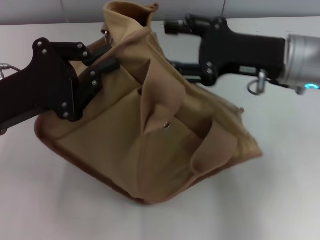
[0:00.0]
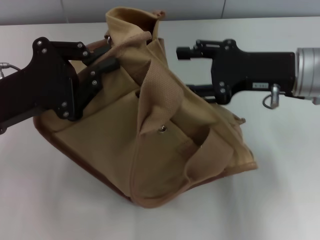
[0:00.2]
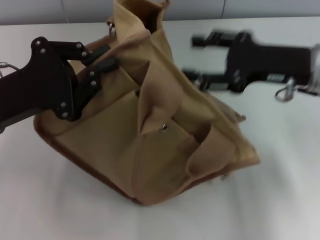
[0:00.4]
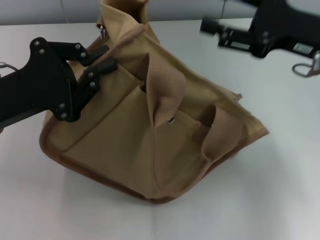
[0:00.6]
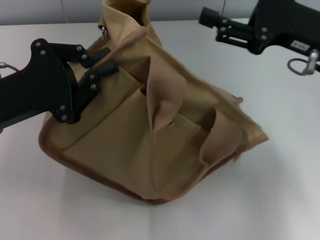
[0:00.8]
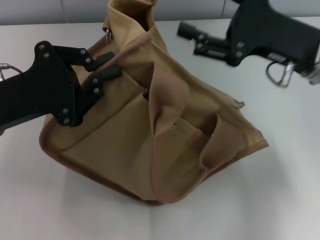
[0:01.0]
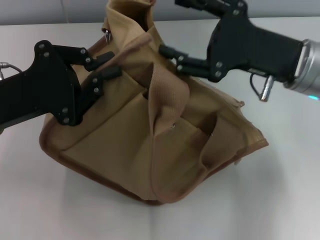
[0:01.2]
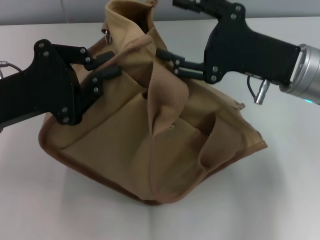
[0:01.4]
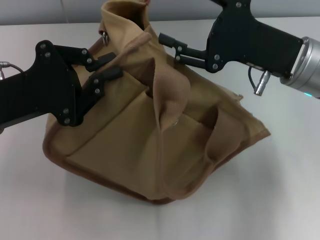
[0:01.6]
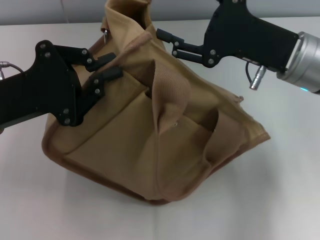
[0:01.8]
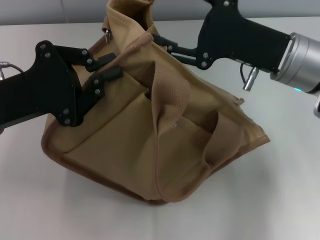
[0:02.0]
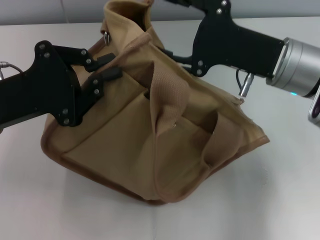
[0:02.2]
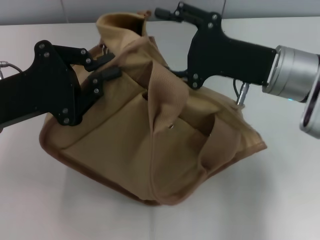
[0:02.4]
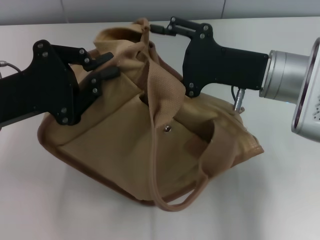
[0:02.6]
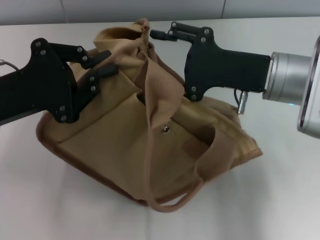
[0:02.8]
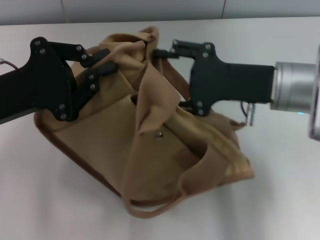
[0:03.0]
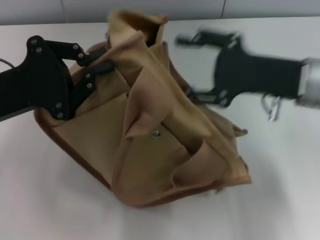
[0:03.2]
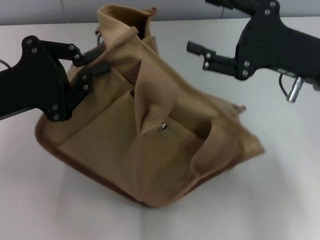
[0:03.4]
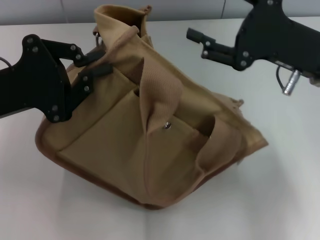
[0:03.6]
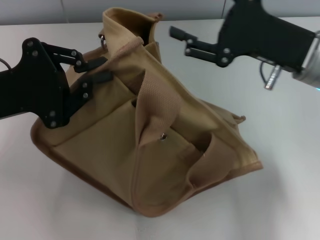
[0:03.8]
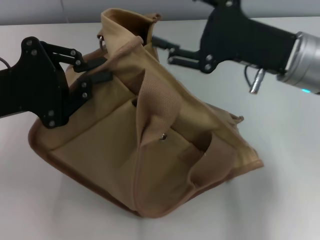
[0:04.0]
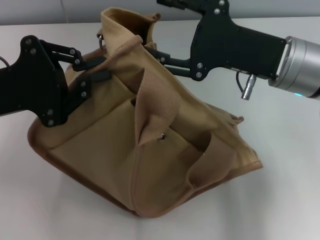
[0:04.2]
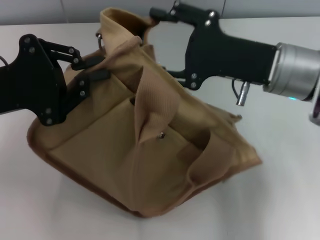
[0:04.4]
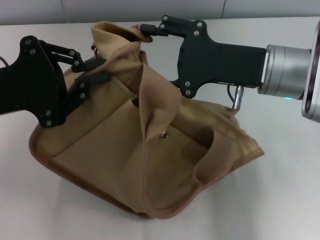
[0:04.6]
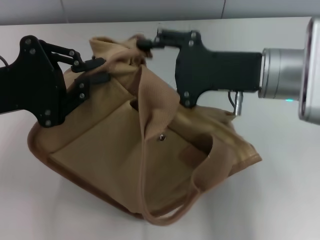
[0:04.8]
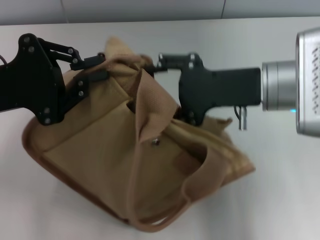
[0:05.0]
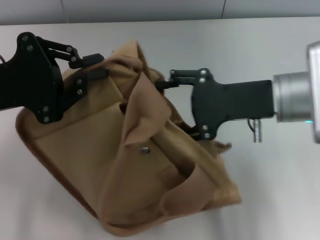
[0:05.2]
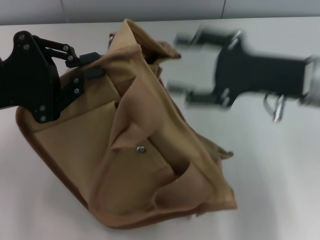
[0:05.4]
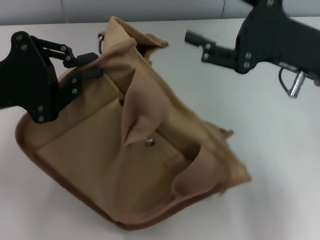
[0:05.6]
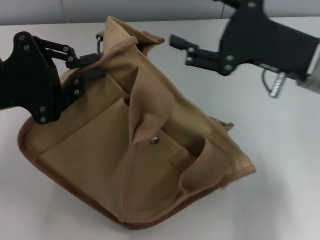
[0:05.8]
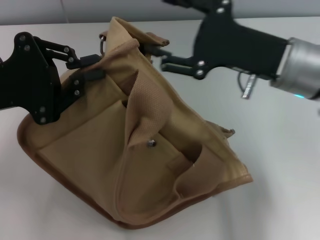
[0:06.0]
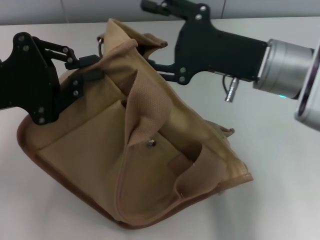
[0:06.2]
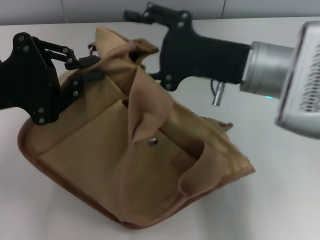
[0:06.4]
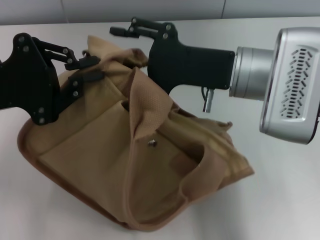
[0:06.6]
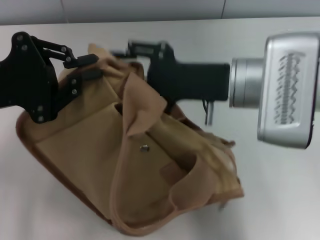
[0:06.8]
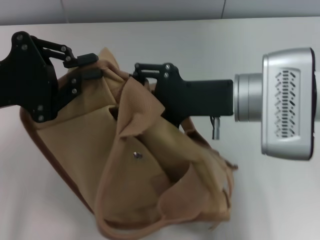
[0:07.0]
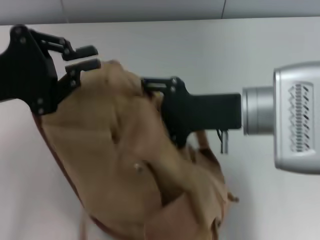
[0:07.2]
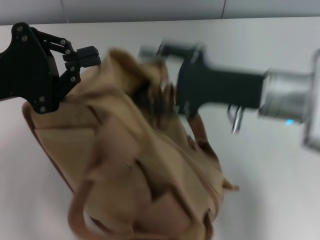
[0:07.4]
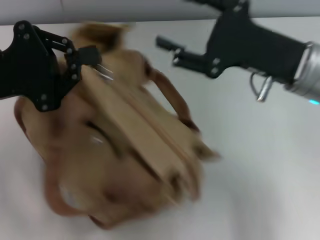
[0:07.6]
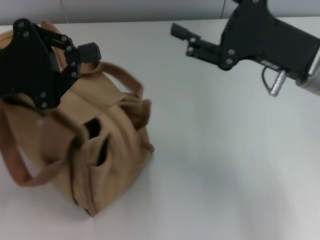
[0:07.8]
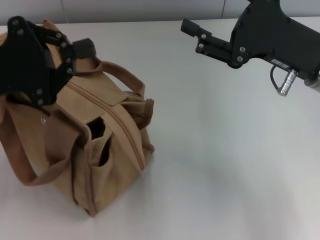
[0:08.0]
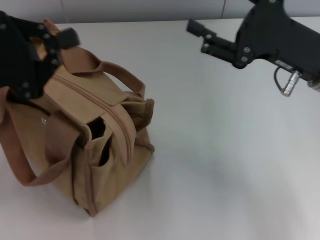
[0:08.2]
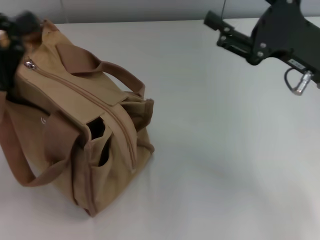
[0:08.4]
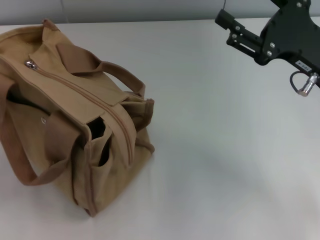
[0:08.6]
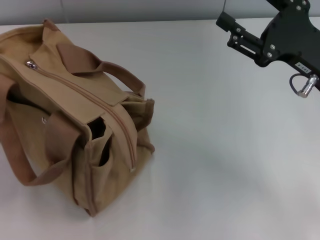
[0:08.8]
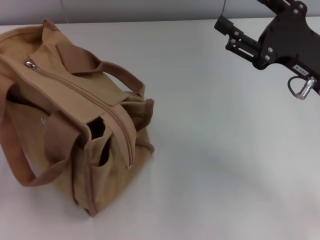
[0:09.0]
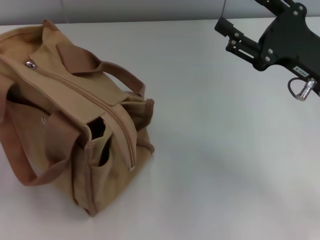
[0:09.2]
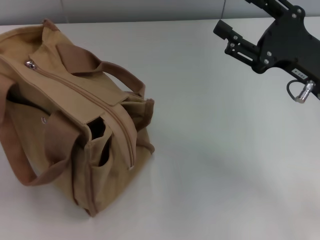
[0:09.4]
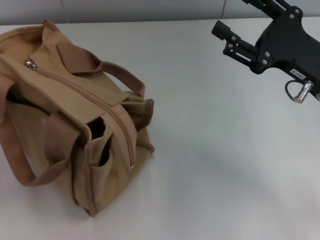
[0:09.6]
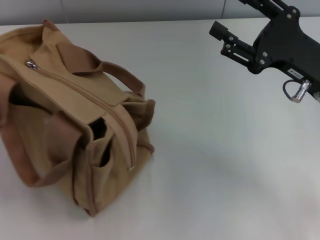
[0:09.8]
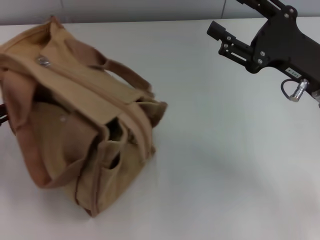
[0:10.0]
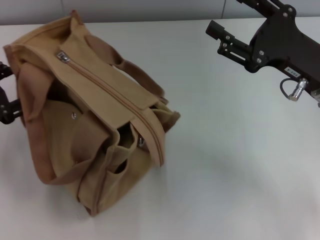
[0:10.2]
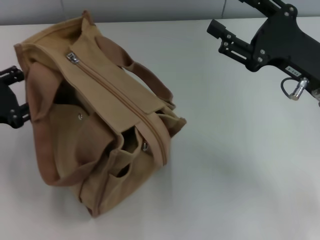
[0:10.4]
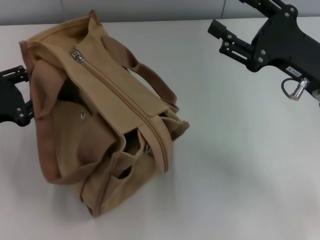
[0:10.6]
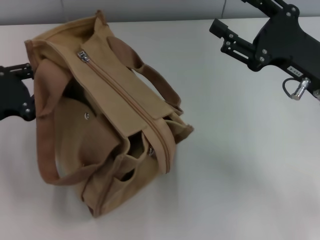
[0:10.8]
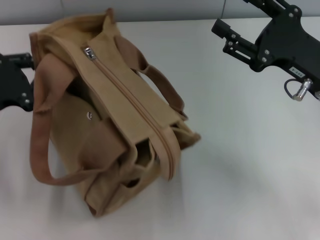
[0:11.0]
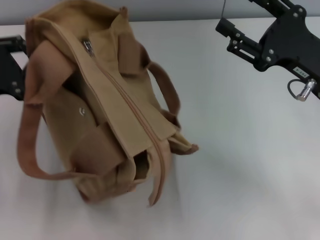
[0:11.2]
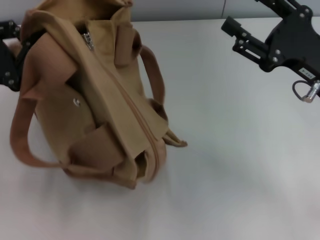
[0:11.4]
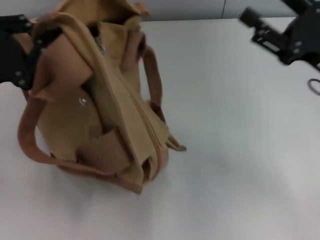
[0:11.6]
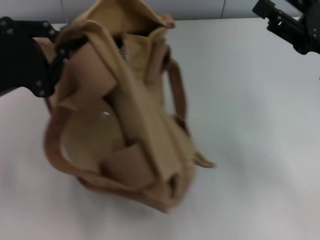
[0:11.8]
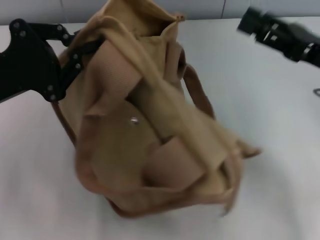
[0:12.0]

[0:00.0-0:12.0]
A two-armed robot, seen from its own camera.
0:07.6 to 0:09.0: The left gripper shifts about 15 cm to the left, backward and downward, while the right gripper changes place by about 5 cm.
0:09.0 to 0:10.4: The left gripper heads forward, covering some 5 cm, and opens its fingers.
0:10.4 to 0:12.0: The left gripper heads to the right and upward, covering some 10 cm, and closes up.

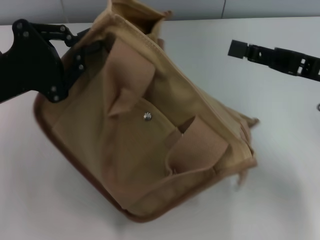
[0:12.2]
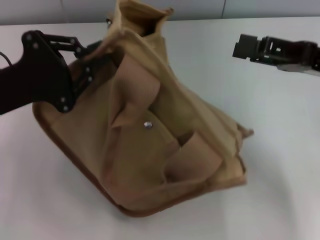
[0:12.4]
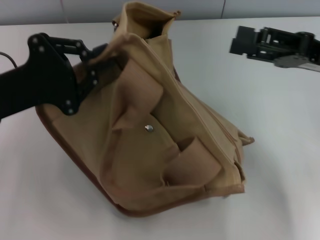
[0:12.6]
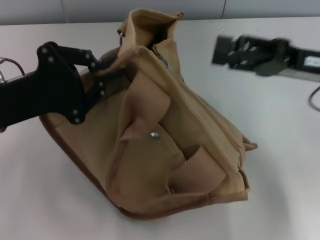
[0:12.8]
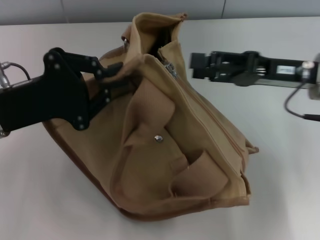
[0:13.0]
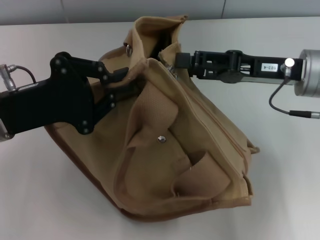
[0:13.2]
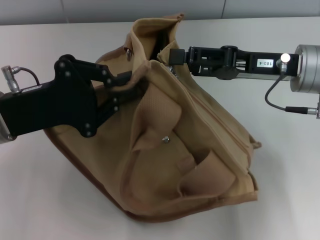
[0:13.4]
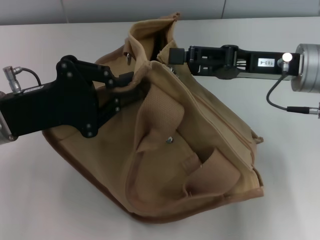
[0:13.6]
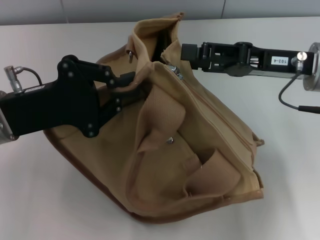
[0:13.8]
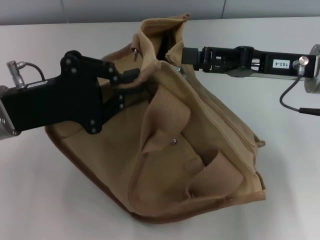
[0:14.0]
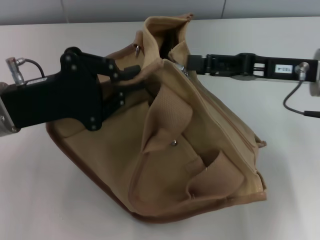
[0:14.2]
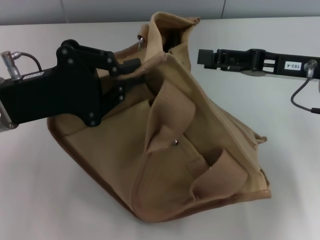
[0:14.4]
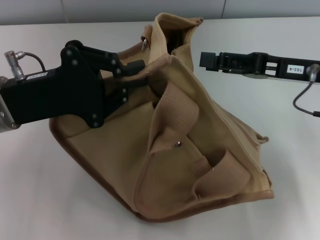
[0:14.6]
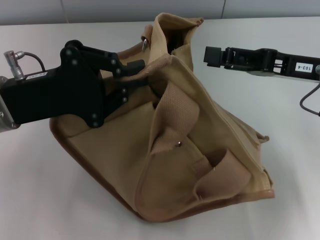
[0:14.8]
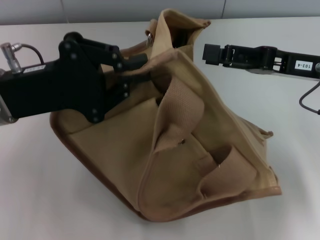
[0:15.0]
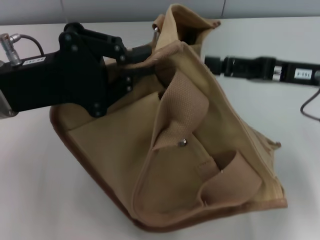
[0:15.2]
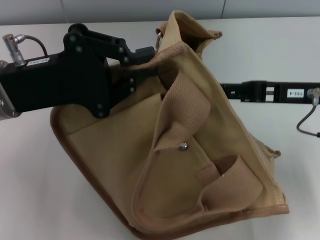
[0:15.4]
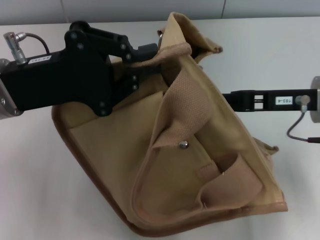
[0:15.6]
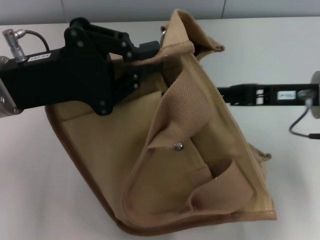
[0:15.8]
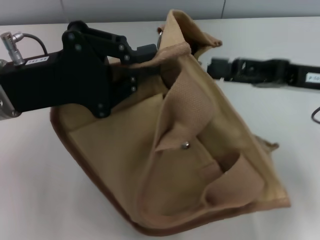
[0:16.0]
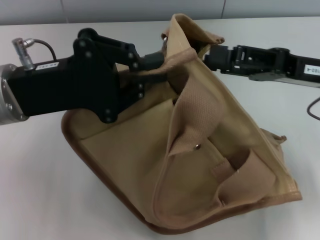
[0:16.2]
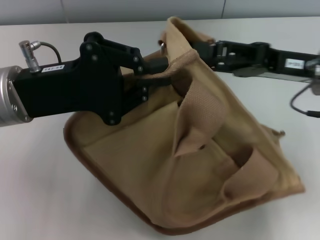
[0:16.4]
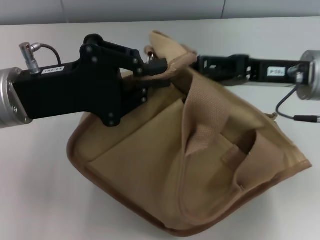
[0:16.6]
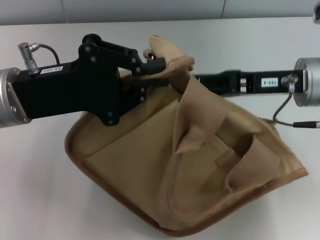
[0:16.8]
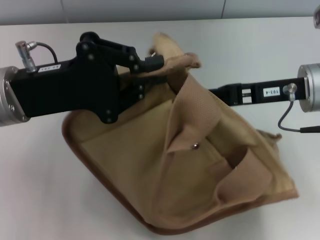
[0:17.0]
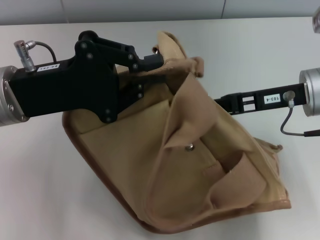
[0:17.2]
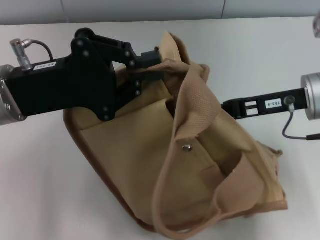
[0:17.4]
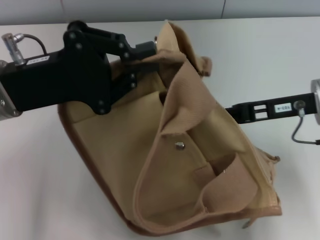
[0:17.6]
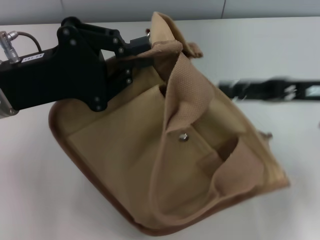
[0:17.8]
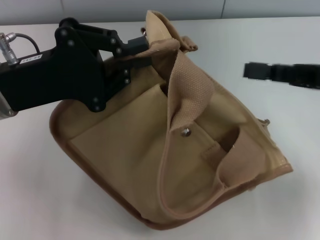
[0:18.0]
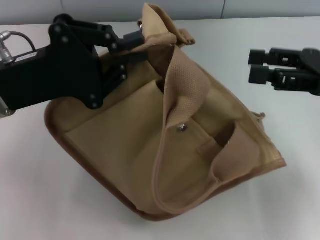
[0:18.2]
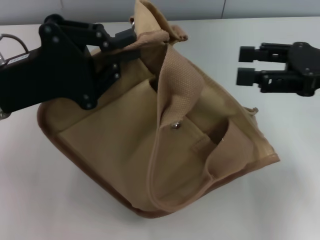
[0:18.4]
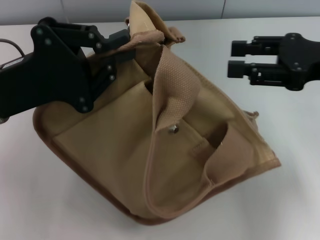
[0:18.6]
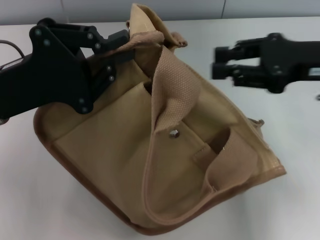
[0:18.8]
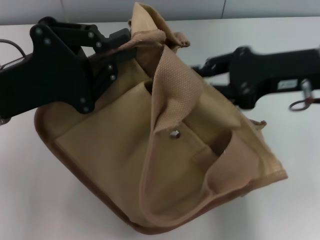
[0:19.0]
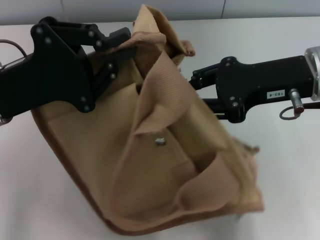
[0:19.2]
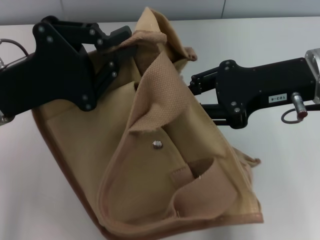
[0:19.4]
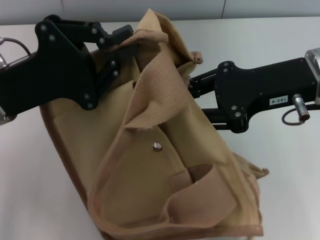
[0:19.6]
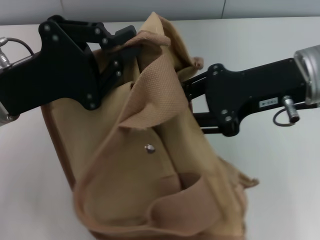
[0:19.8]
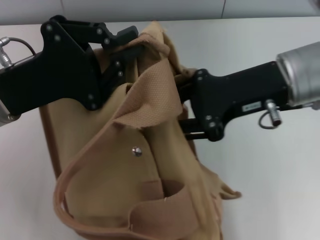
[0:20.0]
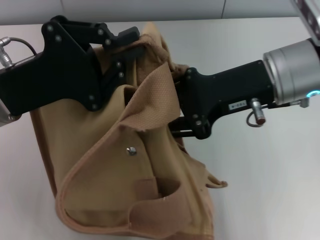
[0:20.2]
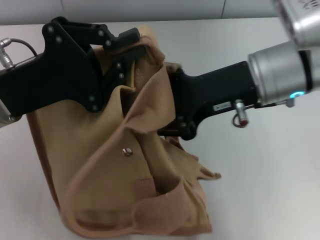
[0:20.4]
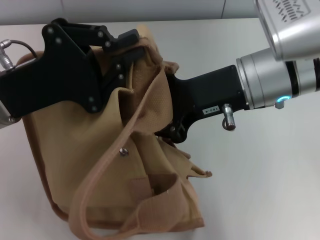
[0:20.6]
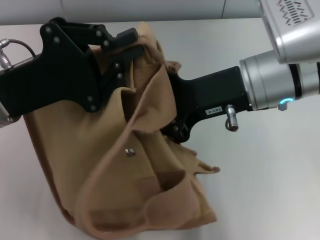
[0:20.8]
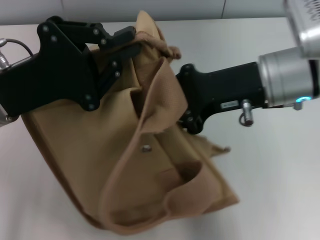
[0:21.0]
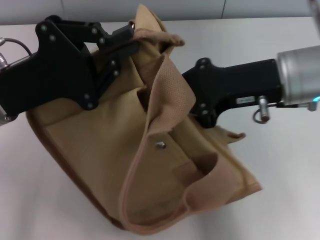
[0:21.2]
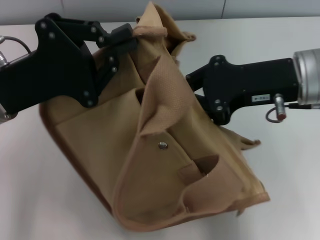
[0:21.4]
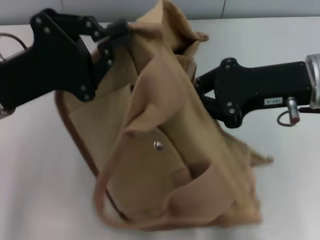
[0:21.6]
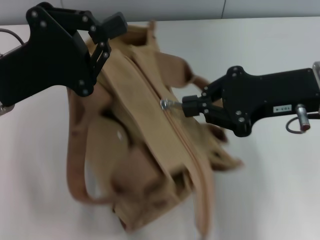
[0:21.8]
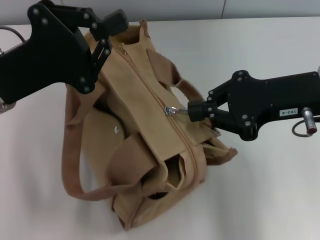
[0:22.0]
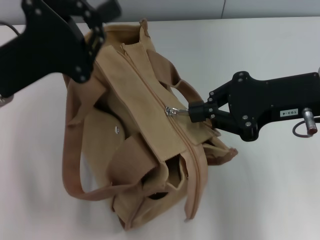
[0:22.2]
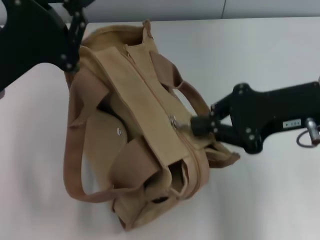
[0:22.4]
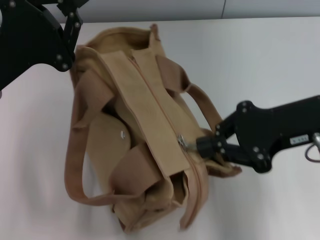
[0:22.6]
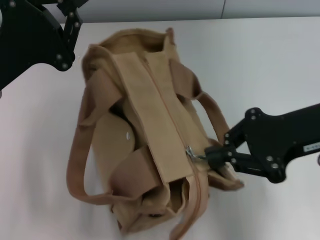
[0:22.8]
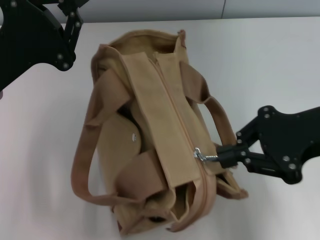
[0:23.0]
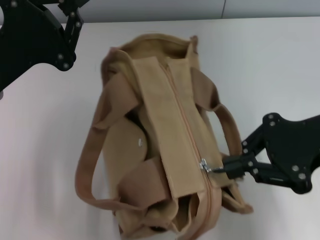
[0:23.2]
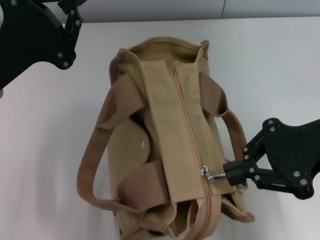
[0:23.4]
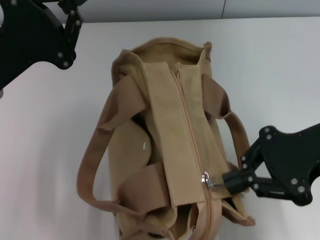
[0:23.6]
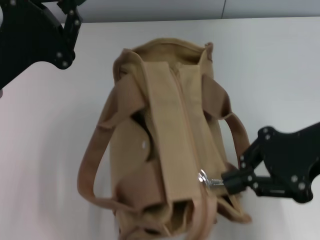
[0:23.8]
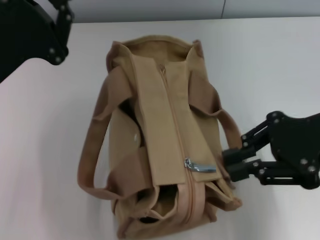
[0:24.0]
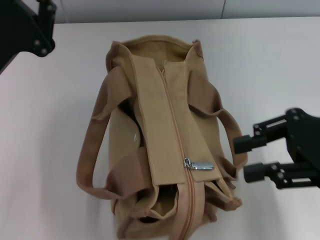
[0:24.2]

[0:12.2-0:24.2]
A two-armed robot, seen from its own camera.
Step, 0:12.2 to 0:22.0: Grab the bag with your left hand.
0:12.2 to 0:13.8: The right gripper shifts by roughly 5 cm.
0:16.6 to 0:18.2: The right gripper travels to the right by some 10 cm.
0:18.2 to 0:19.8: The right gripper travels to the left by roughly 10 cm, and closes up.
0:19.8 to 0:21.2: The right gripper closes.
0:21.2 to 0:22.6: The right gripper ends up approximately 5 cm from where it was.
0:22.6 to 0:24.2: The right gripper shifts by roughly 5 cm.
